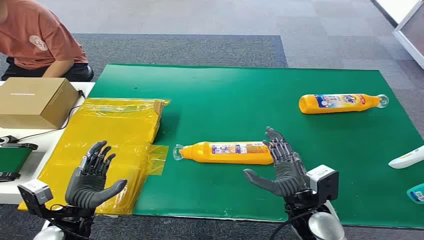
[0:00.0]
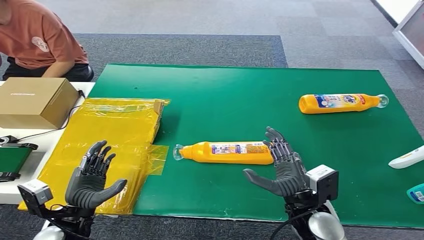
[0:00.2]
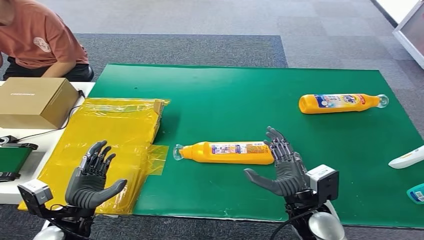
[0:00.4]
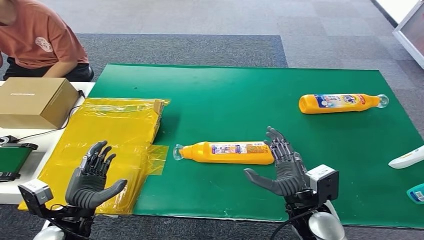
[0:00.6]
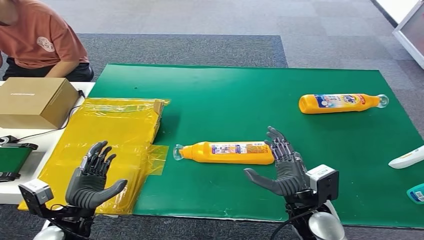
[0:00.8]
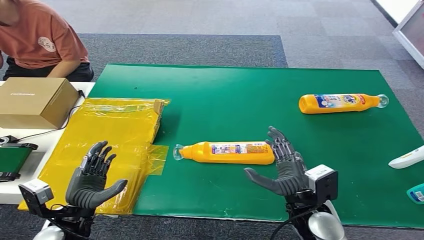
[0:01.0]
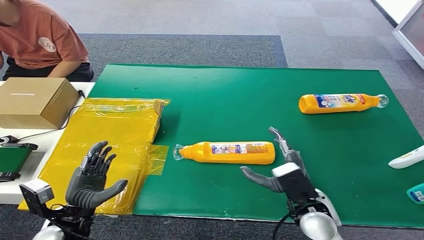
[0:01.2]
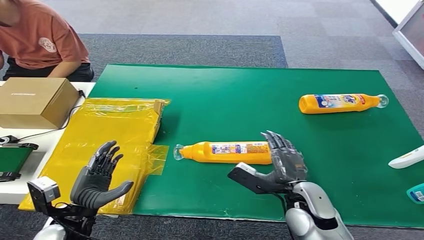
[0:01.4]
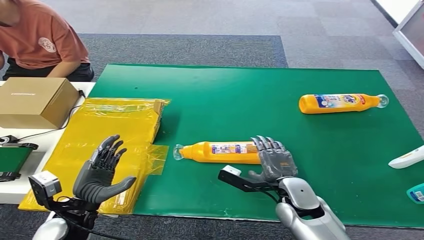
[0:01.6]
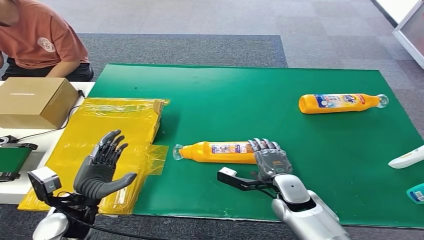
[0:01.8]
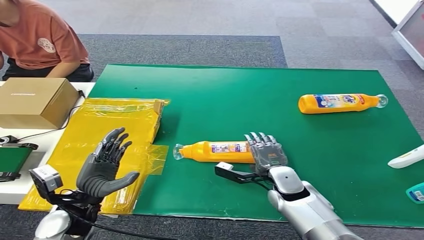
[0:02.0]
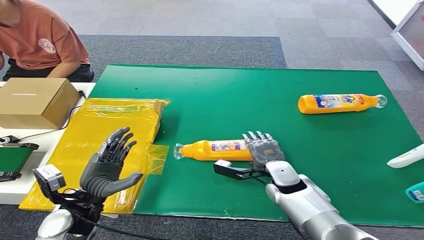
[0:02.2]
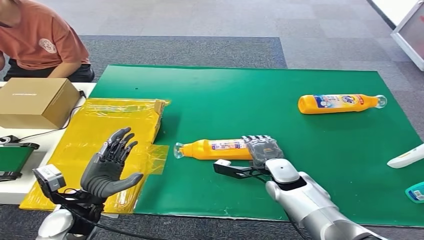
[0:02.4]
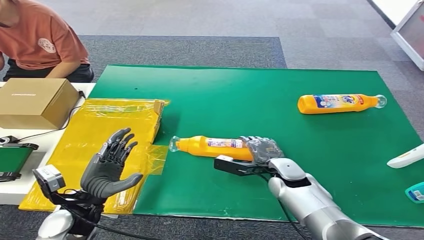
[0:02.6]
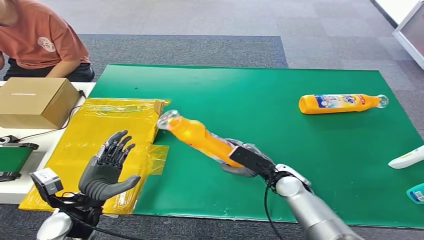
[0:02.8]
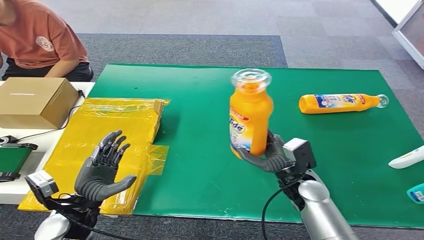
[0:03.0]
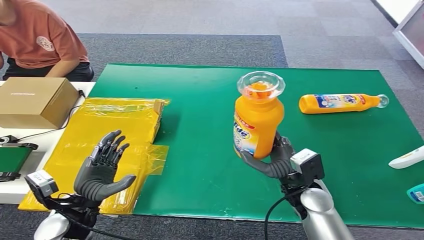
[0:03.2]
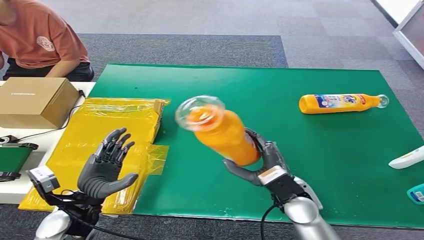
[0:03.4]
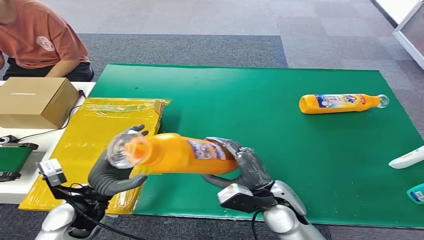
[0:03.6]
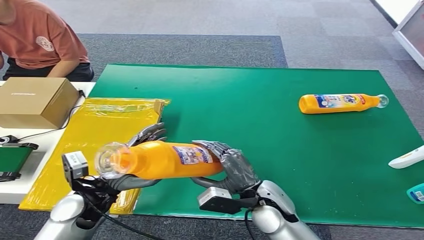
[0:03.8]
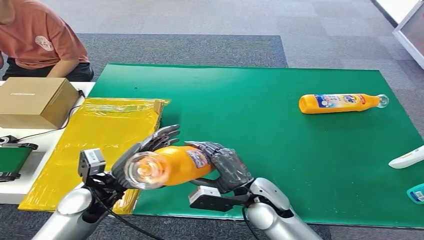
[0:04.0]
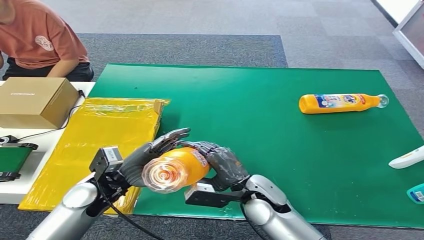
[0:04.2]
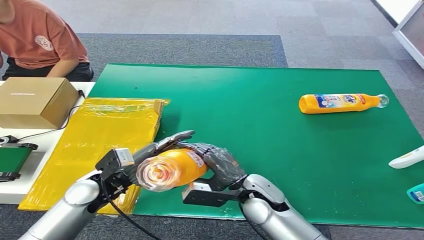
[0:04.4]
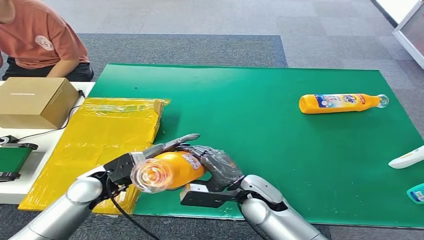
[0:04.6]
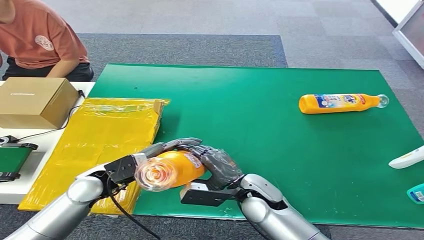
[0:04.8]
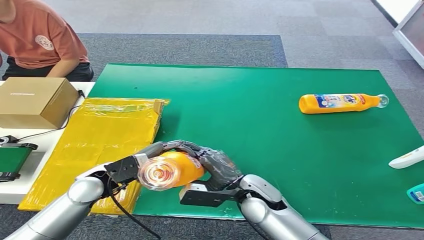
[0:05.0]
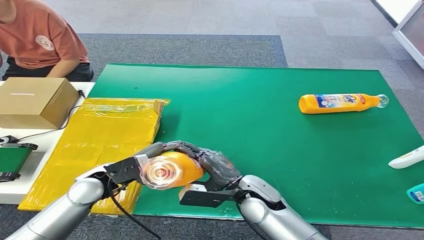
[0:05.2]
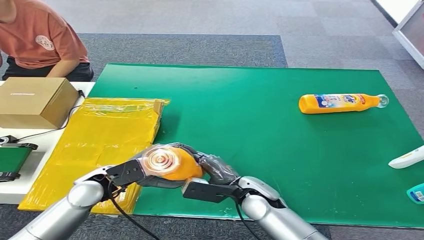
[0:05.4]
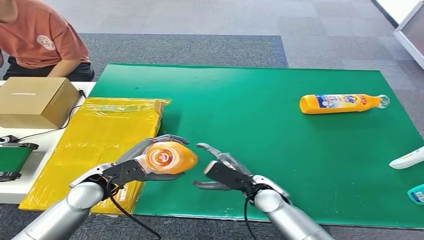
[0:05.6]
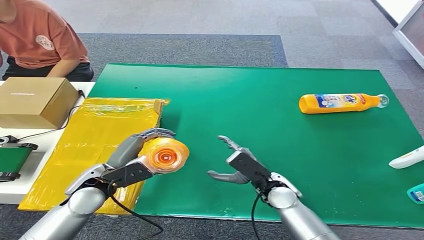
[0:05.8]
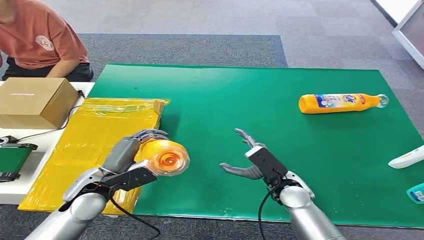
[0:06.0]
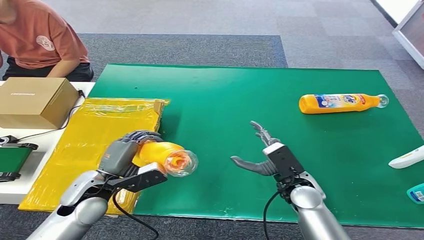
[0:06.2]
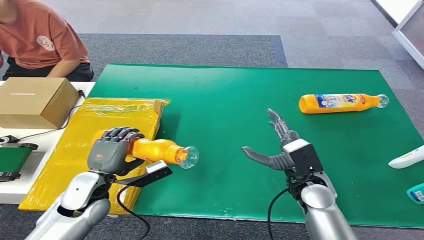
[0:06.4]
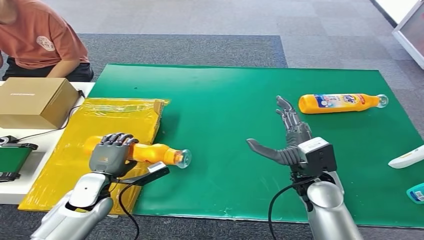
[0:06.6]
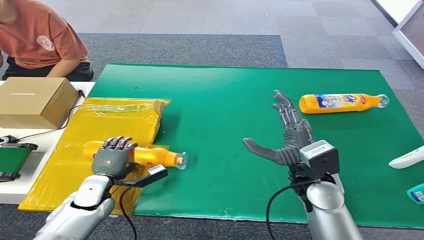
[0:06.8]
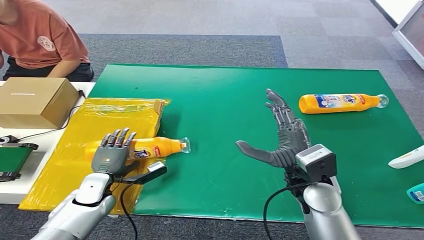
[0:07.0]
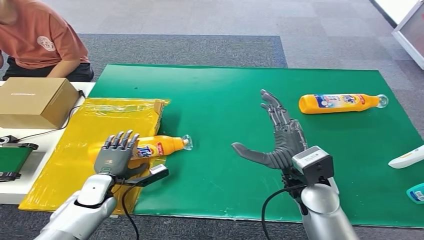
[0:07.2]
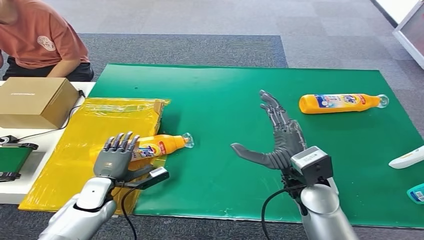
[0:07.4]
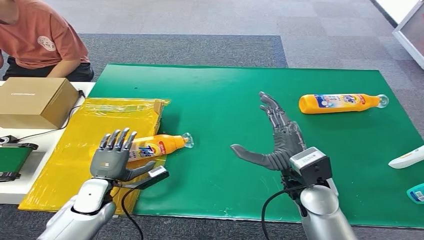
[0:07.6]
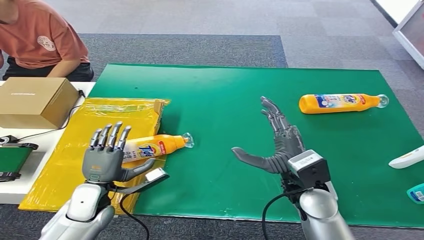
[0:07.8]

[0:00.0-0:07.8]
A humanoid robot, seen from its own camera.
Step, 0:00.0 to 0:03.0: Pick up the bottle from the table.
Step, 0:03.2 to 0:07.8: Turn the bottle to the front side.
0:04.6 to 0:06.2: The right hand moves to the right, some 10 cm.
0:06.2 to 0:07.8: The right hand goes approximately 10 cm upward, while the left hand travels downward by approximately 5 cm.
